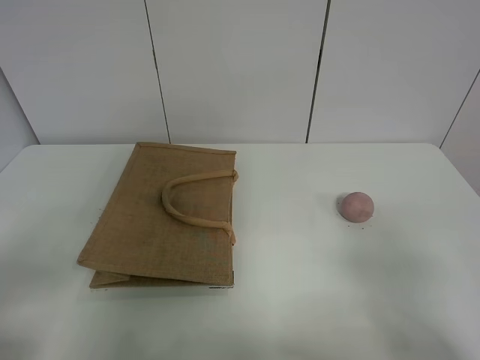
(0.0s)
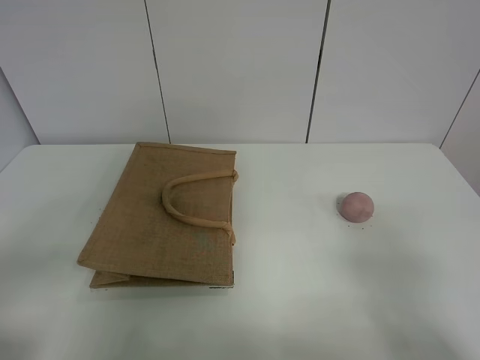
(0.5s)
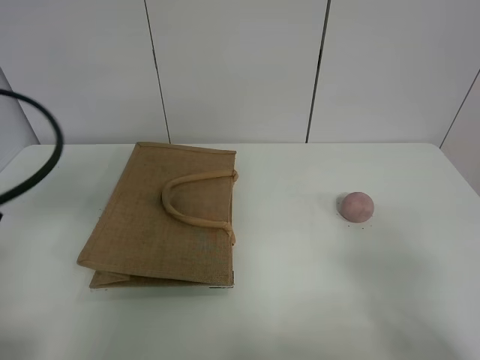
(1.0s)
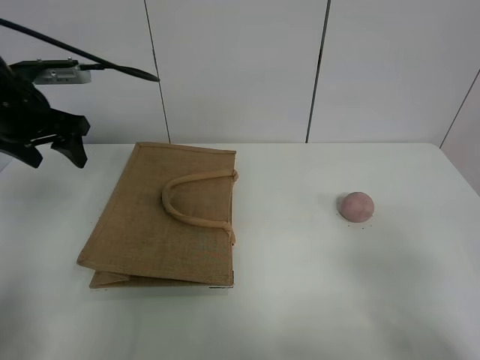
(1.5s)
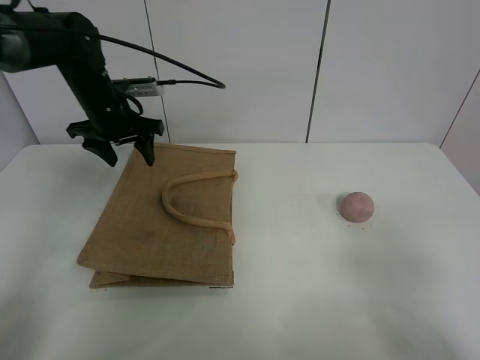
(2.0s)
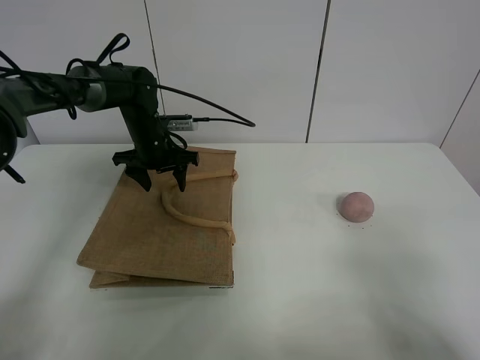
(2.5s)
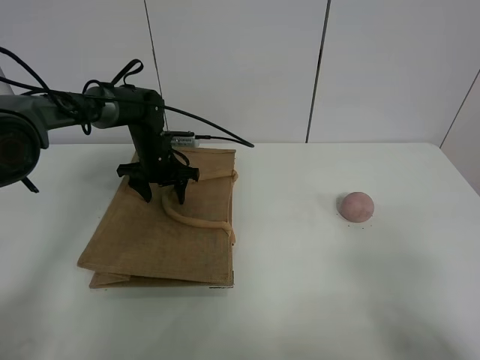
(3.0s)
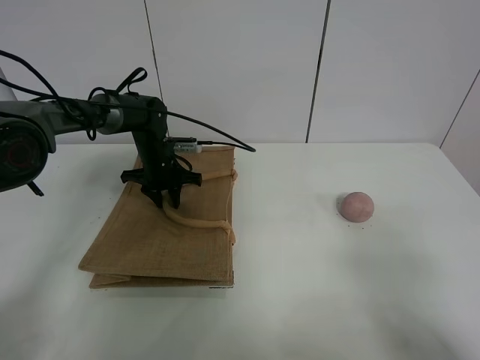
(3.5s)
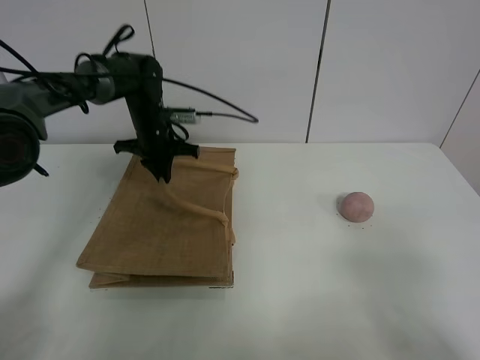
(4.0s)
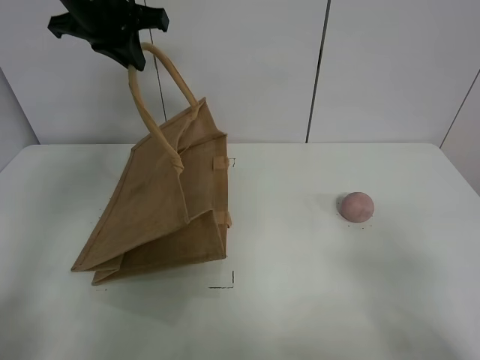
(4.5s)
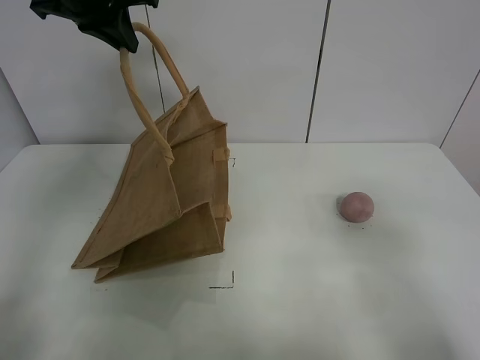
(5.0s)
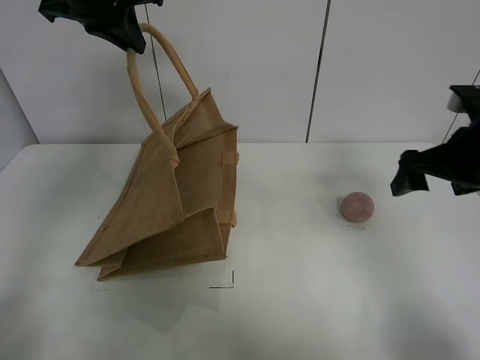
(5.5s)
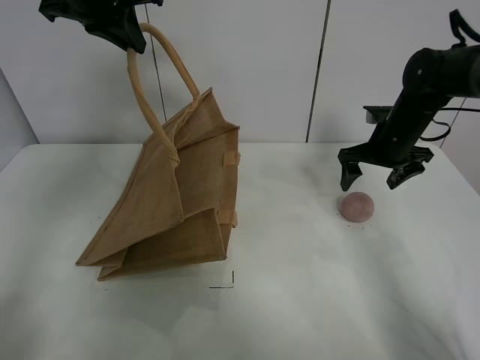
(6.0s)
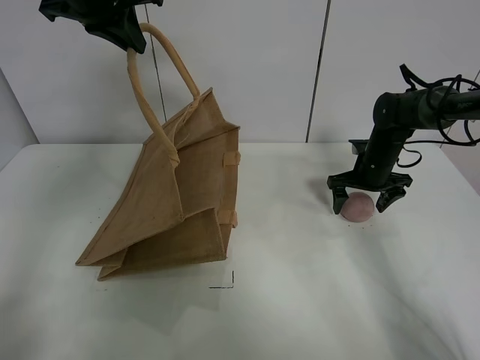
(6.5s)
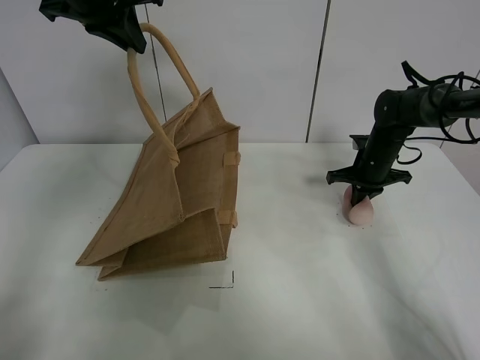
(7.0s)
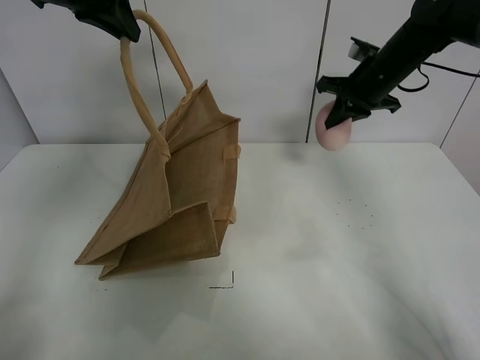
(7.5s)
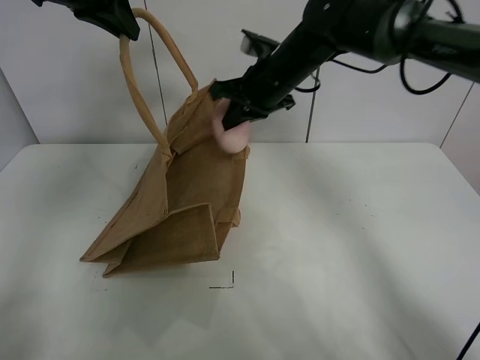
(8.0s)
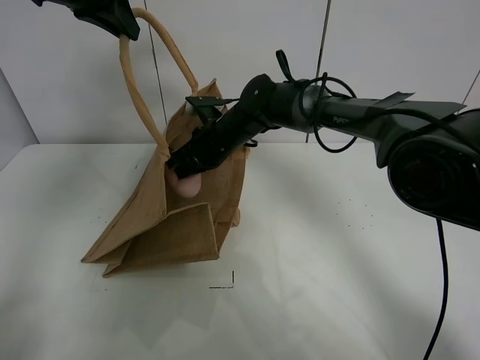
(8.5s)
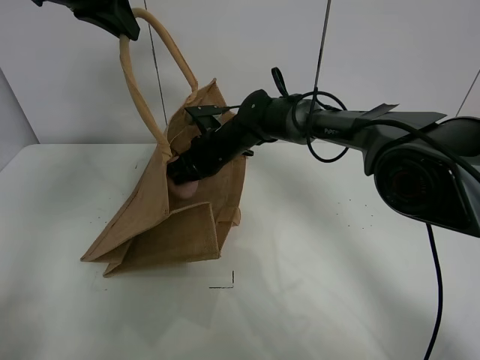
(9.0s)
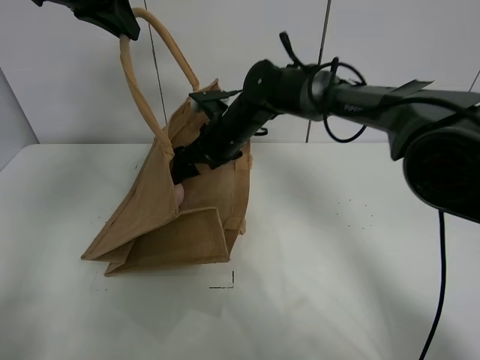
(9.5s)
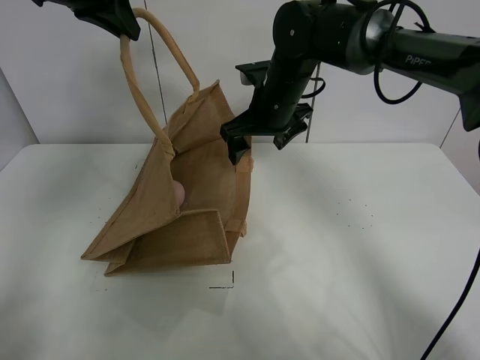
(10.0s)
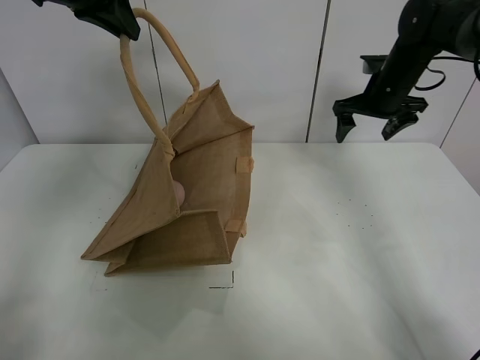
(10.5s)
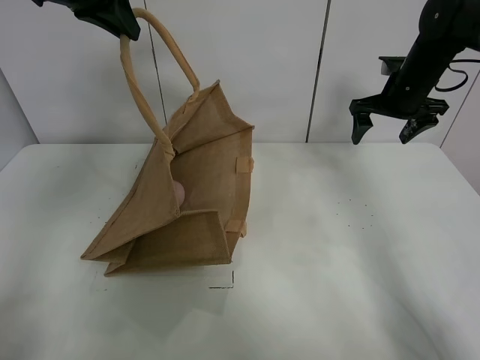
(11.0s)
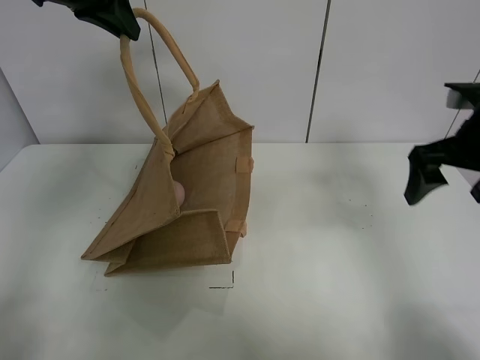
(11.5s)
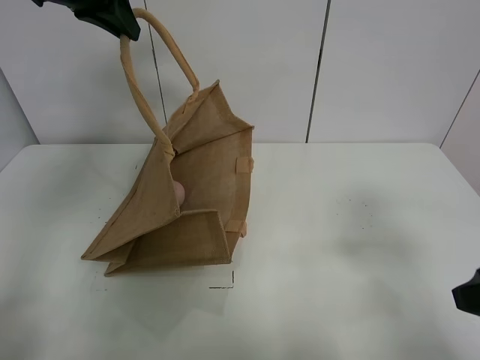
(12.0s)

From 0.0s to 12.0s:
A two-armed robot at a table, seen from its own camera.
Task of the whole recording: open the brown linen bag and put the peach in the bag.
Step, from 0.0s to 4.5s: Lift the handbag with left gripper.
Step, from 5.0s to 6.5s: Grasp the peach with right gripper.
Step, from 7.0s to 10.0s: Place the peach in the handbag with right gripper.
From 0.0s to 2.0s: The left gripper shifts roughly 40 cm forward.
From 2.0s to 4.0s: The left gripper moves some 15 cm downward and comes back, and closes its fingers.
From 4.0s to 6.0s: The right gripper is displaced forward by some 40 cm; the left gripper moves upward and backward, roughly 25 cm.
From 6.0s to 8.0s: The right gripper goes approximately 20 cm to the left, and closes.
From 8.0s to 10.0s: The right gripper moves about 10 cm downward and comes back, and opens up.
From 10.0s to 12.0s: The right gripper goes roughly 40 cm backward and to the right.

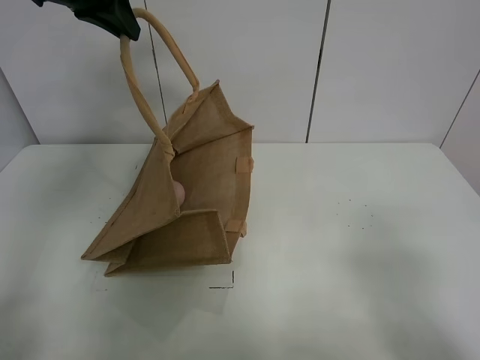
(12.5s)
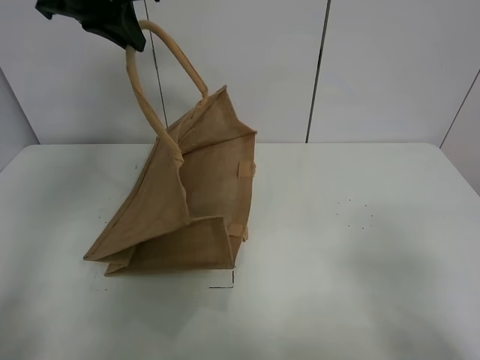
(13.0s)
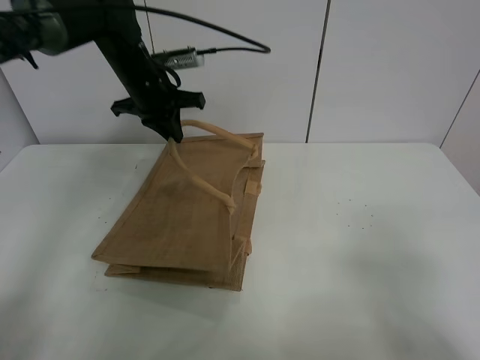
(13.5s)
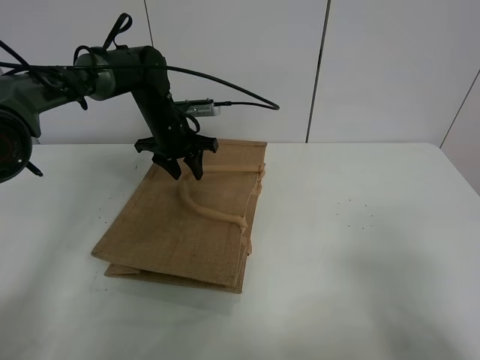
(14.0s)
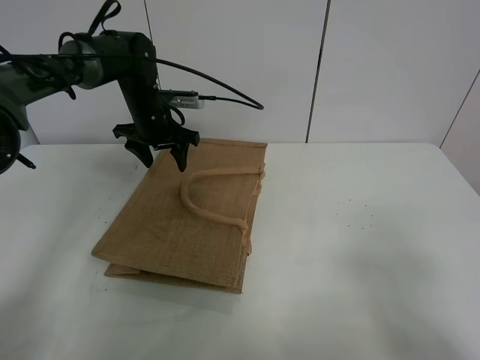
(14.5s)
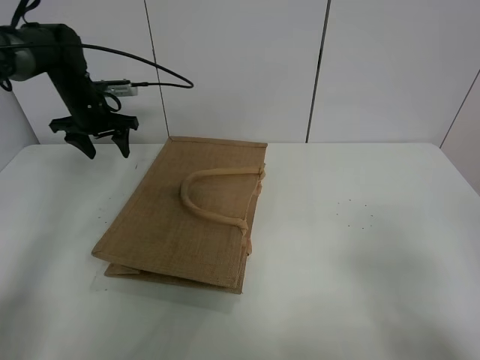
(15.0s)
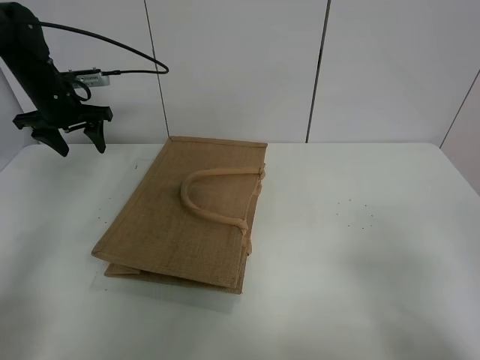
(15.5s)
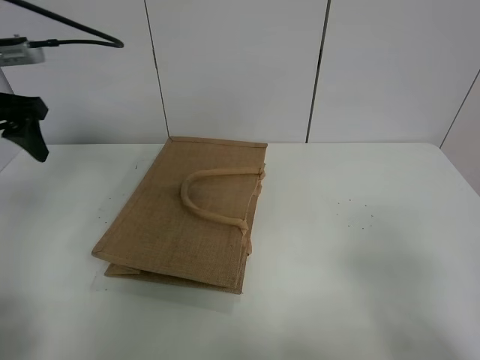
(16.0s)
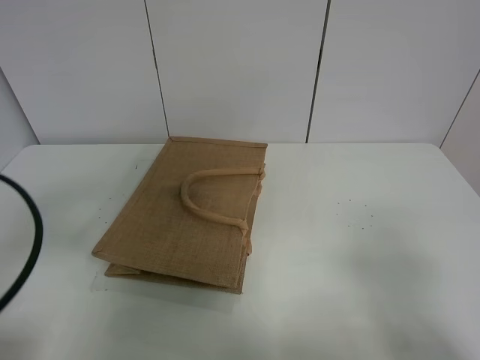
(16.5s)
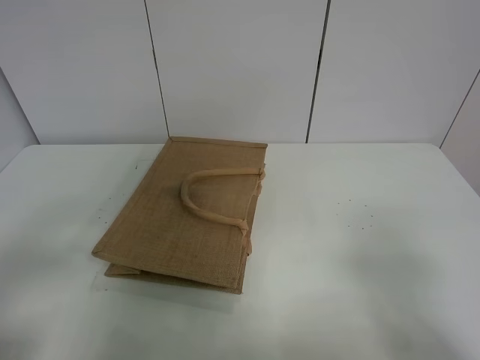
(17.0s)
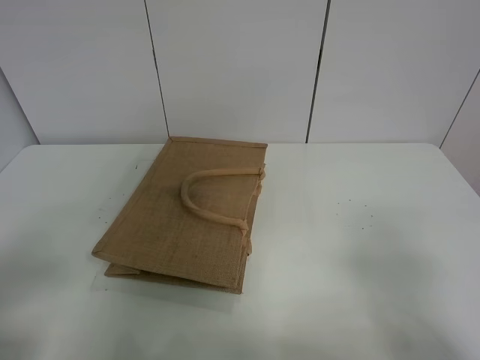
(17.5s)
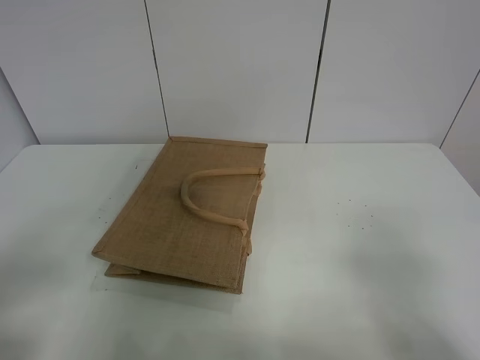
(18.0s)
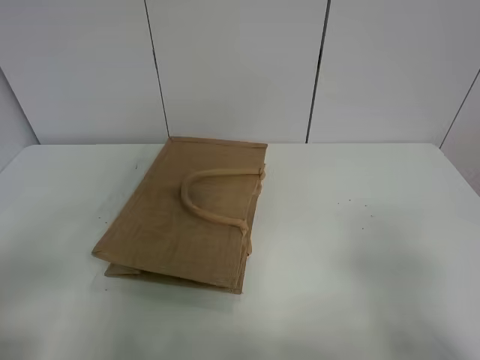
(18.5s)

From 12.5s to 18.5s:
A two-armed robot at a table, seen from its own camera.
Task of the whole recording: open the brown linen bag and put the peach in the bag.
Step, from 12.5s to 14.5s: Put down the handbag with left grippe.
From 12.5s to 14.5s: The left gripper is displaced downward and forward by about 25 cm, and opens.
From 14.5s to 16.5s: The left gripper is displaced backward by about 40 cm.
From 16.5s to 18.5s: The left gripper moves backward, about 10 cm.

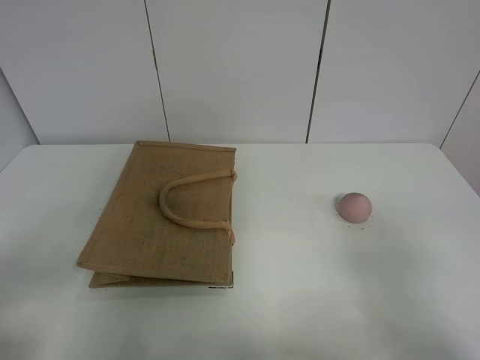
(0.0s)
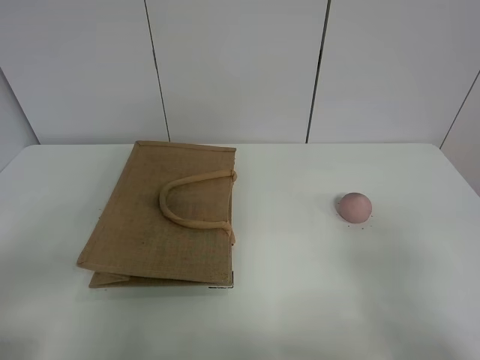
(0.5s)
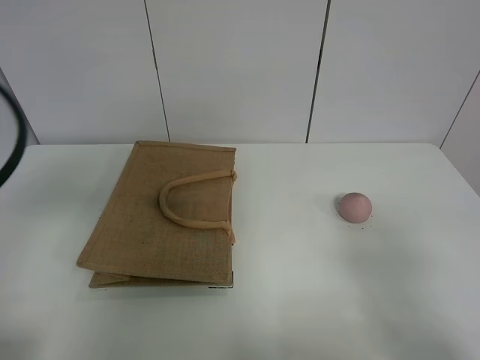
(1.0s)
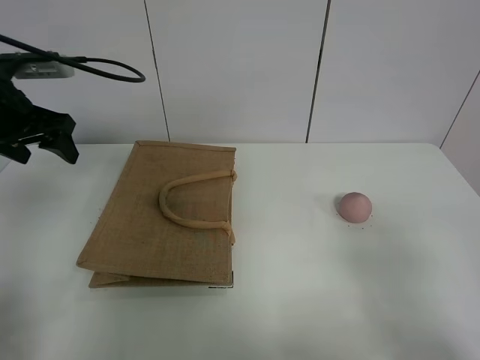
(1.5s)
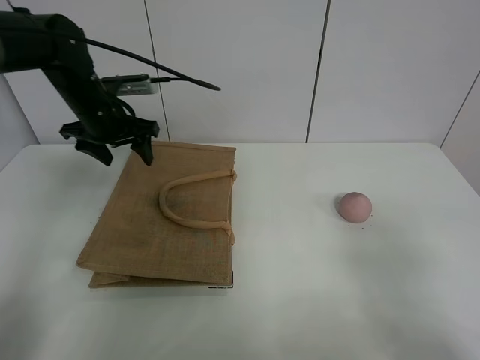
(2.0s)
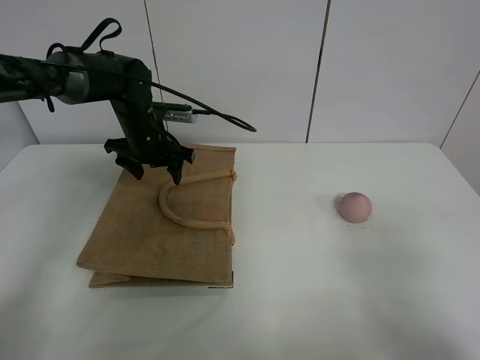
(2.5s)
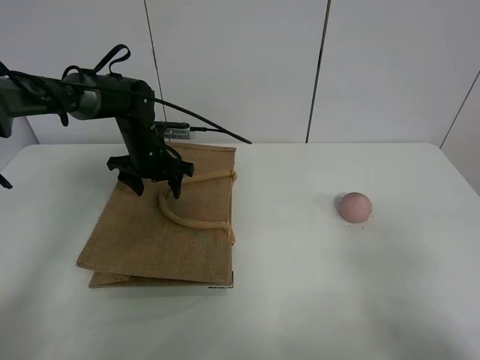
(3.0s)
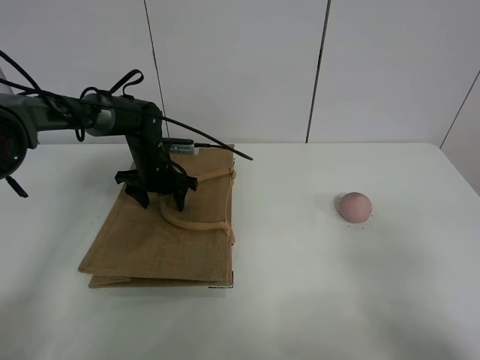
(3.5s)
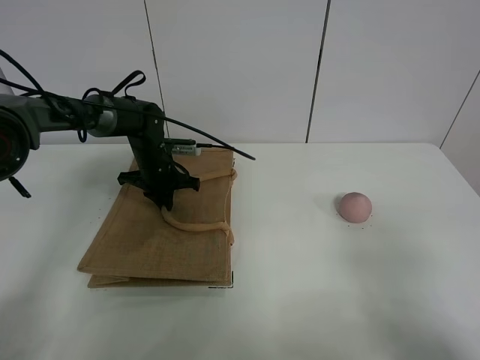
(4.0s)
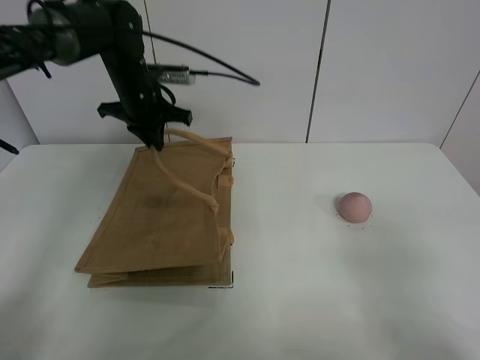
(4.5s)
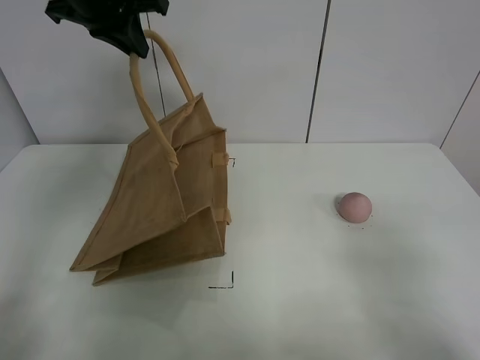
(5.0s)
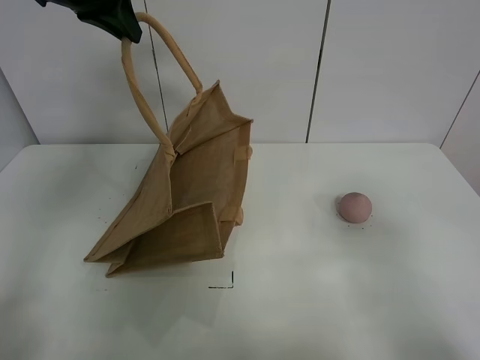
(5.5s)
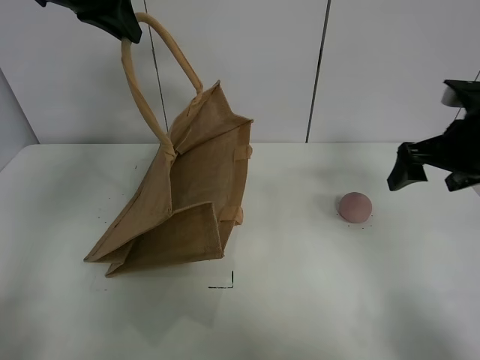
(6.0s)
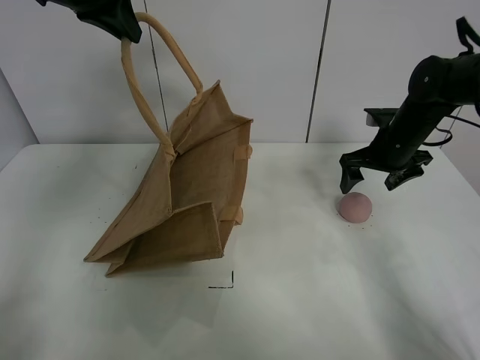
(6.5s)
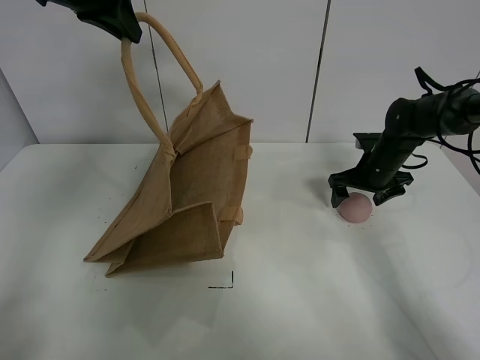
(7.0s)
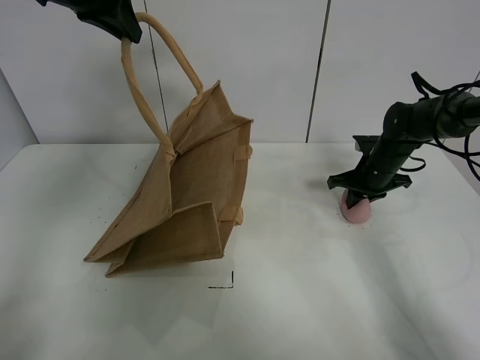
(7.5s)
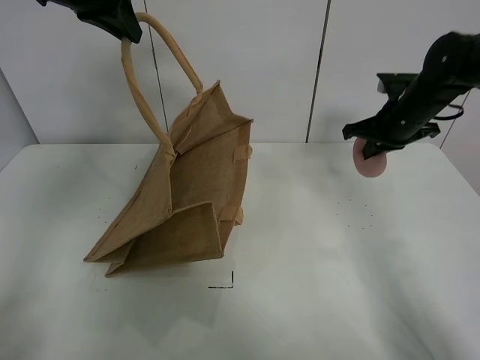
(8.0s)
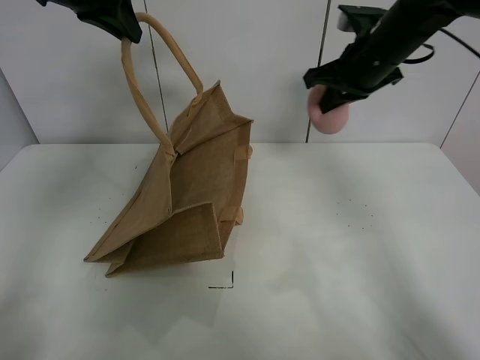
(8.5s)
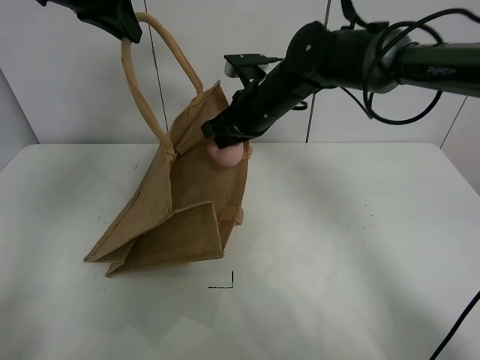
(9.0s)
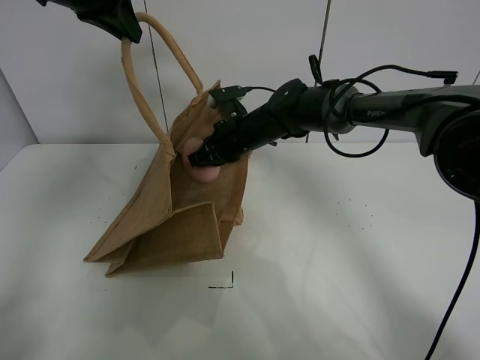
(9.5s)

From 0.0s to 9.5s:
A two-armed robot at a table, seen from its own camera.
Task of the whole recording: open the brown linen bag and put the peach in the bag.
Step, from 0.0s to 5.0s: Lift the handbag with left gripper.
Step, from 5.5s to 7.5s: Grasp the peach with right gripper.
From 0.0s to 2.0s: The left gripper travels forward by approximately 40 cm.
From 2.0s to 4.0s: The left gripper shifts about 15 cm downward and to the right, and closes its fingers.
From 4.0s to 5.5s: The right gripper travels forward by about 5 cm. Meanwhile the left gripper shifts approximately 35 cm upward.
From 5.5s to 7.5s: The right gripper shifts roughly 40 cm forward and downward, and closes up.
From 7.5s to 9.5s: The right gripper travels to the left by roughly 25 cm.
